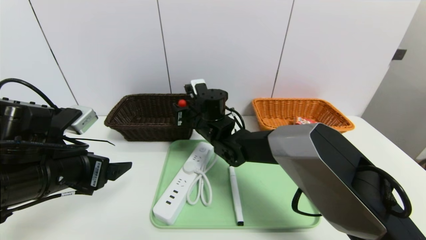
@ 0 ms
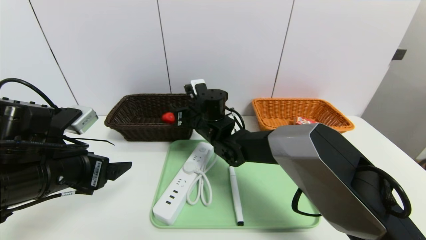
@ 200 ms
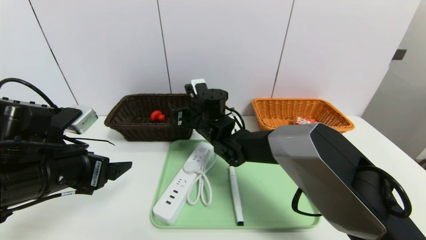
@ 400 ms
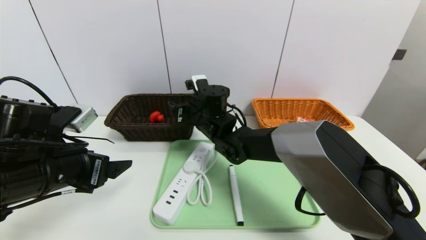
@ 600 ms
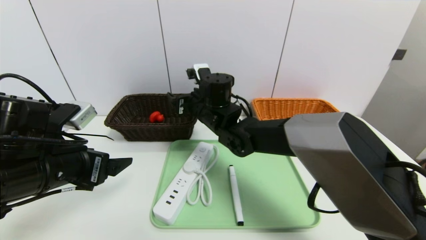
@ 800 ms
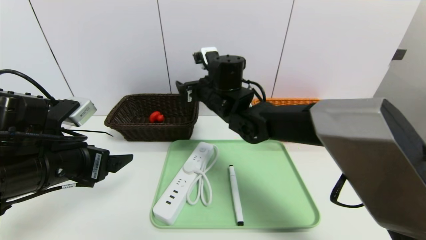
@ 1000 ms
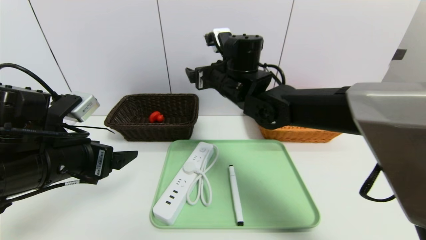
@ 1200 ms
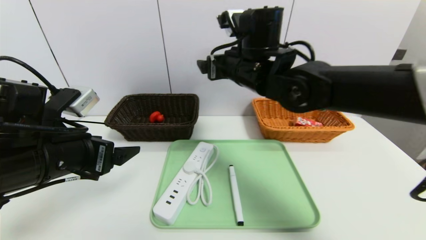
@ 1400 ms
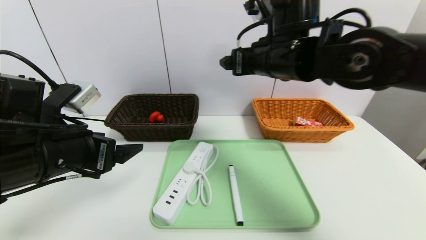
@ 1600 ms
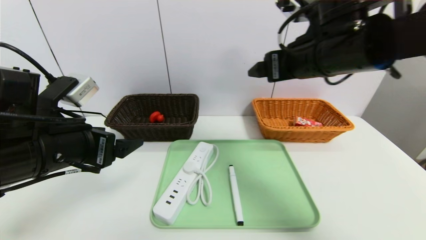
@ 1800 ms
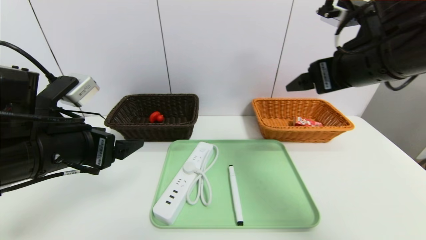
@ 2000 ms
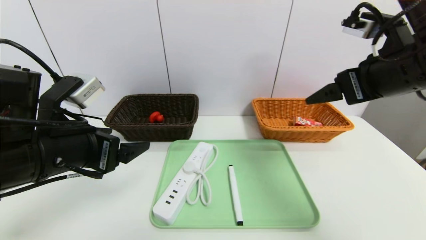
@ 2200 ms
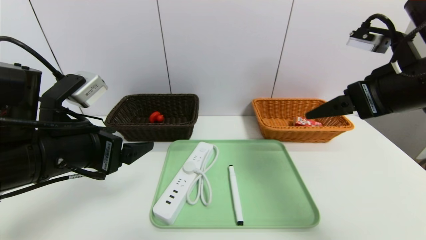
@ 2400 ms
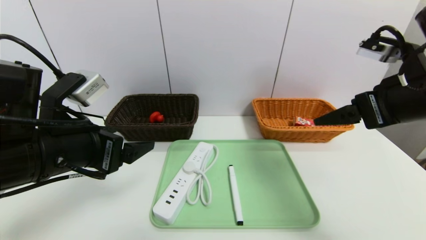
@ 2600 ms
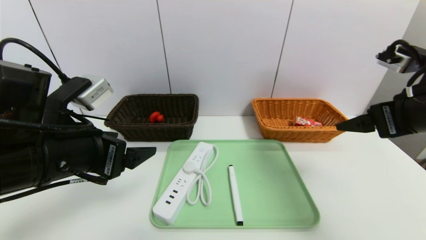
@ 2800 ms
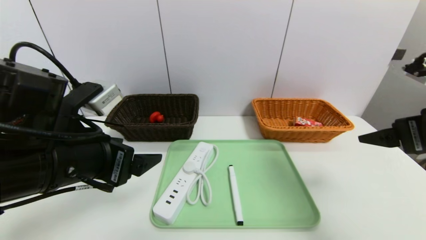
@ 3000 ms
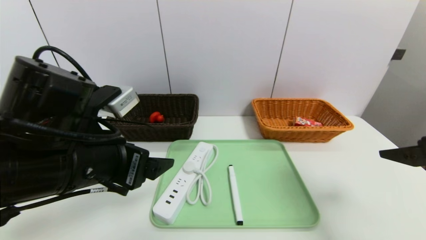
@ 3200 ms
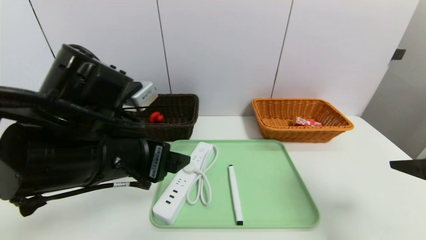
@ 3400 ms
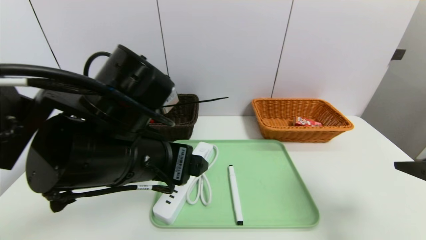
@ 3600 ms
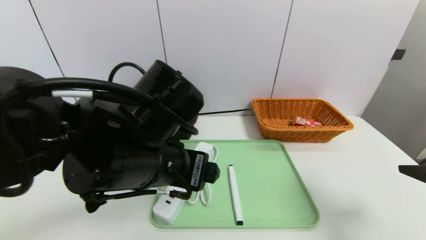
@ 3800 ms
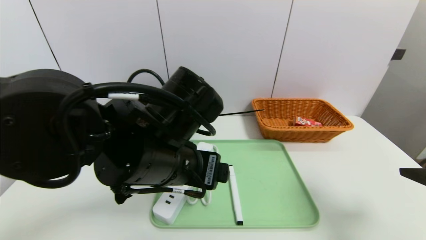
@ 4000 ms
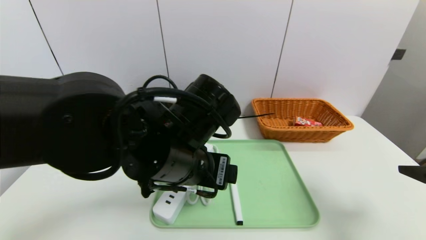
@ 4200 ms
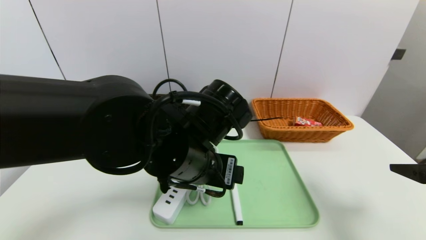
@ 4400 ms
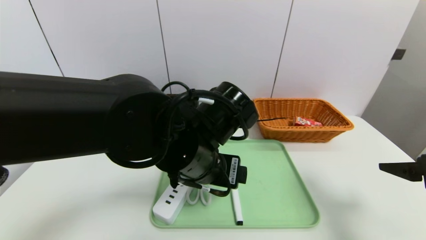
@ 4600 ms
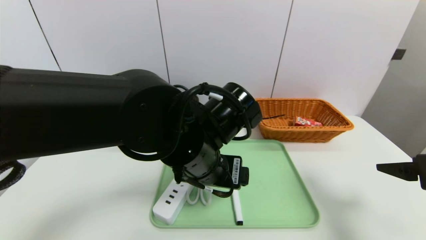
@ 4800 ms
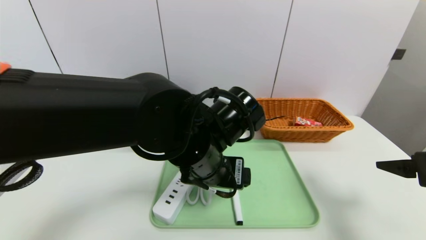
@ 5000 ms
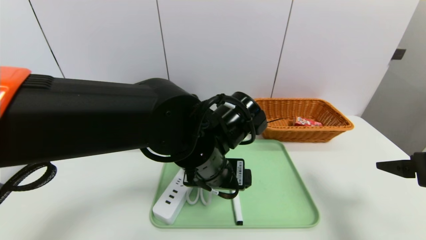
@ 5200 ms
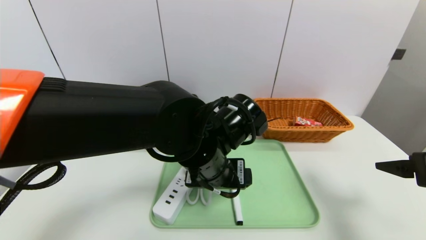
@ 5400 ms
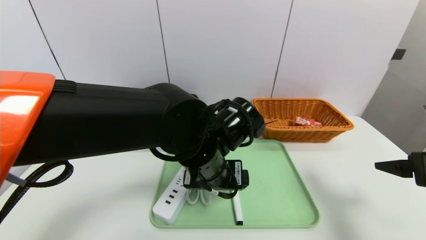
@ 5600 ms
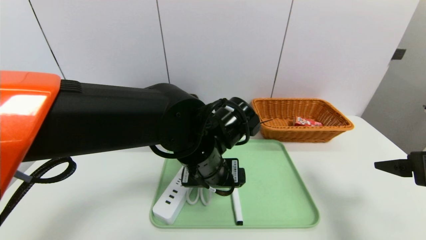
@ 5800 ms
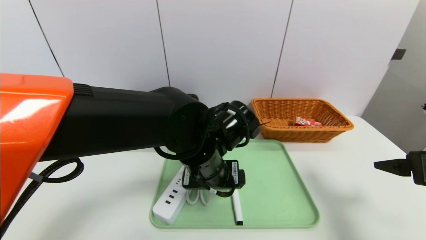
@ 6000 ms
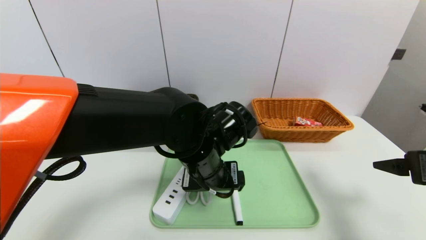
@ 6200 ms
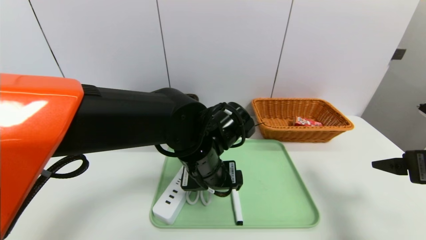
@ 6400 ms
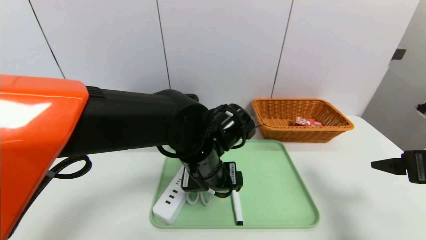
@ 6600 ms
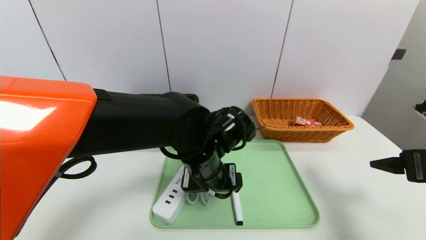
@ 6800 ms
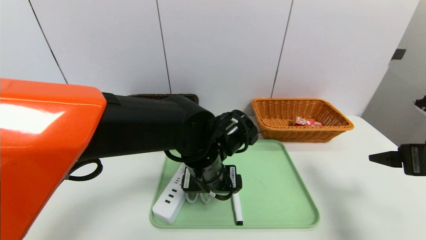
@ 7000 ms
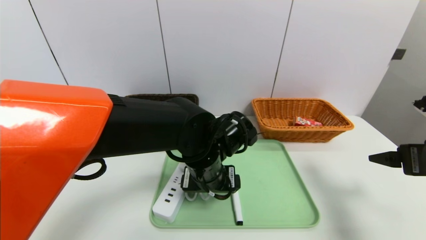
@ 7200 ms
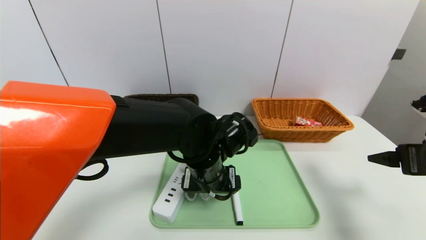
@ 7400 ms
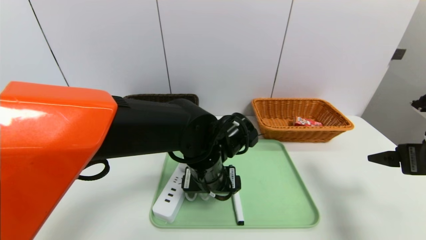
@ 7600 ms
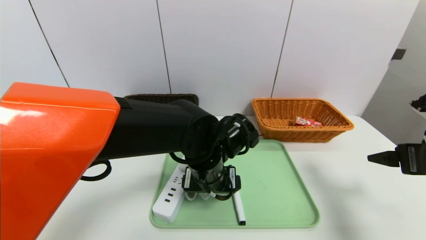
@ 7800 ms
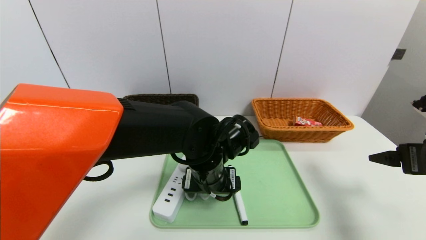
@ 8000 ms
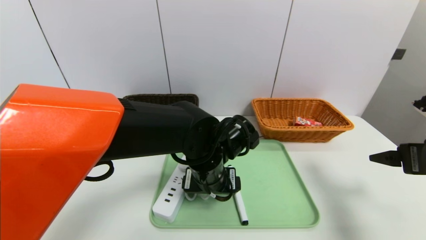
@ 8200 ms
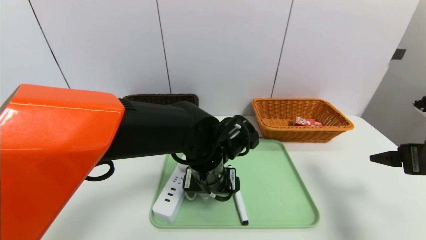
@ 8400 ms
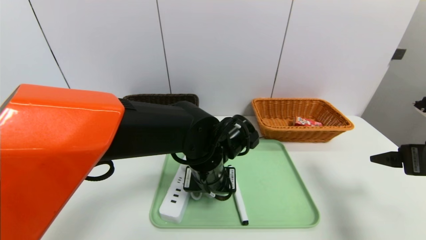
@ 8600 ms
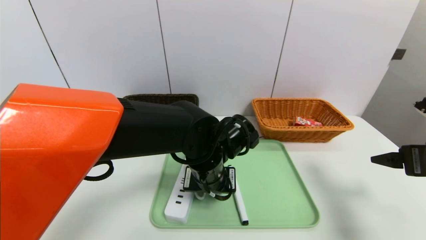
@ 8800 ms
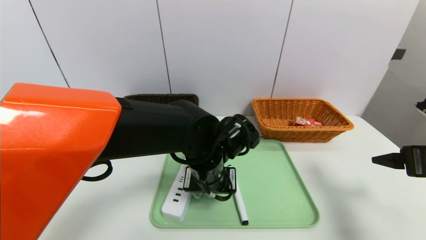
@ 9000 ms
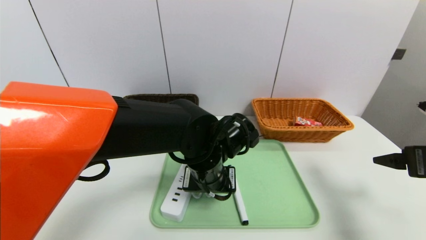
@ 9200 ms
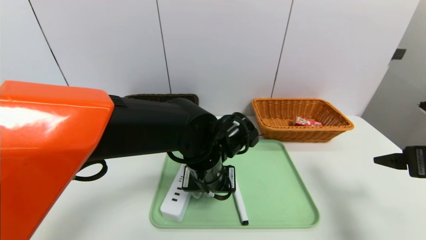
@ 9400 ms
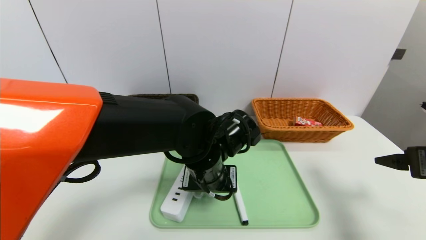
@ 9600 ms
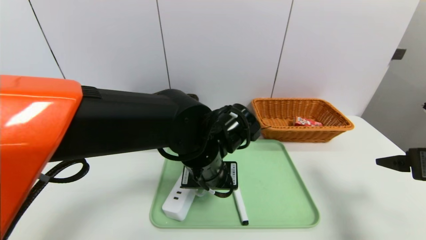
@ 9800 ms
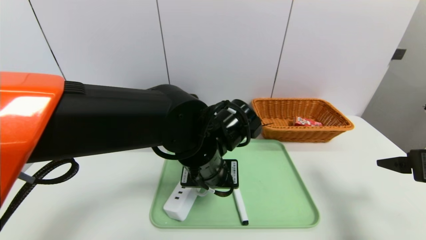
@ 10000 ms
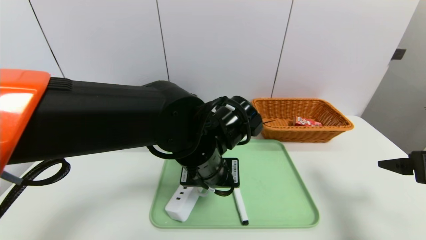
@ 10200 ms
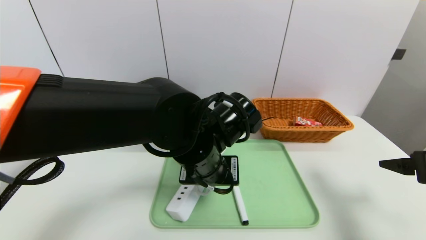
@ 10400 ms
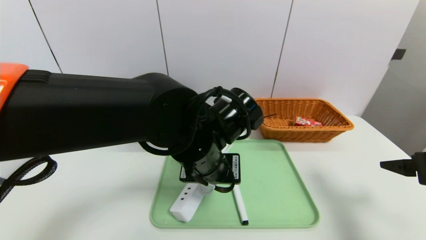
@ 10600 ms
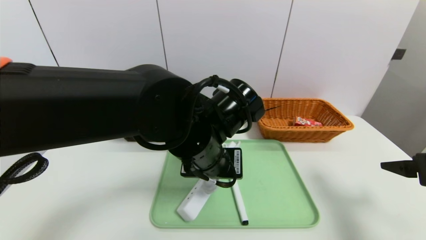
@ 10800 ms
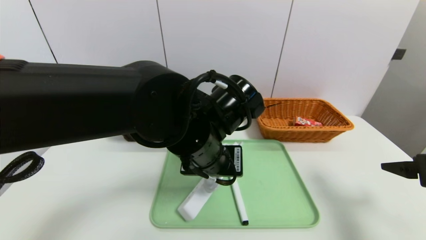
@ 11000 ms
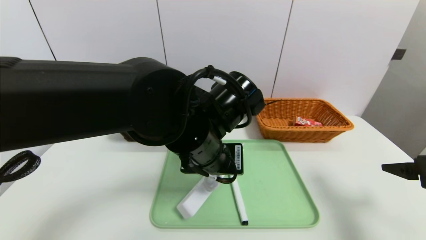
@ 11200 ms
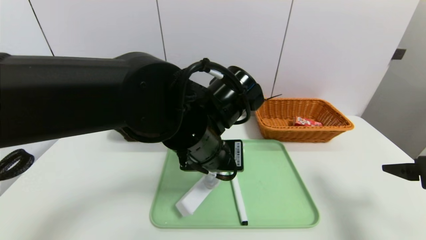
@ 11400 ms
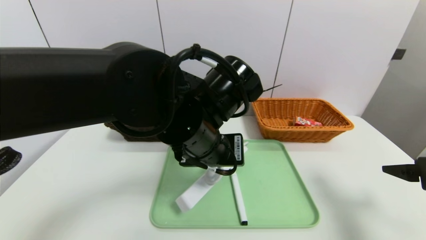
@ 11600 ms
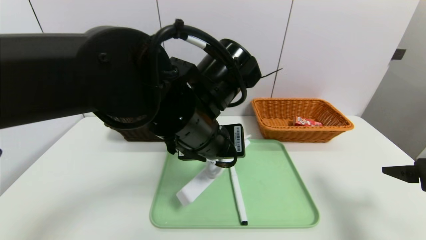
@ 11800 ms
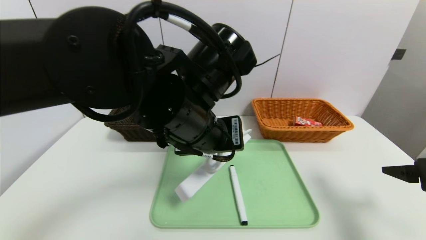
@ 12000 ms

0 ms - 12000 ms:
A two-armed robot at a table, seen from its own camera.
Task of the whole recording: place the food in the right basket with the right gripper, and place the non food items in the left basket with the left gripper.
0 ms - 1600 ms: The right gripper is displaced upward, to the right and backward by approximately 25 cm, and opens.
1600 ms - 3000 ms: The right gripper is displaced to the right and backward by roughly 25 cm.
3000 ms - 4400 ms: The right gripper moves approximately 5 cm. The left gripper moves to the right, approximately 15 cm.
4400 ms - 6000 ms: The left gripper moves roughly 5 cm.
6000 ms - 7600 ms: There are only small adjustments of the grippers.
7600 ms - 9000 ms: The left gripper closes its fingers.
9000 ms - 10400 ms: The left gripper shifts by about 5 cm.
10400 ms - 12000 ms: The left gripper goes approximately 10 cm upward.

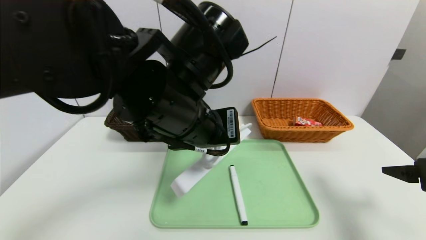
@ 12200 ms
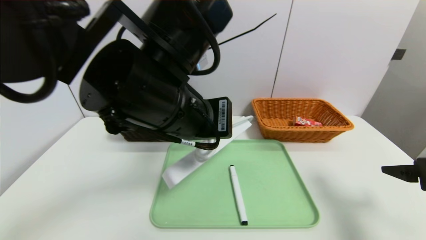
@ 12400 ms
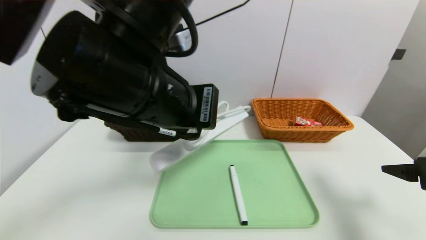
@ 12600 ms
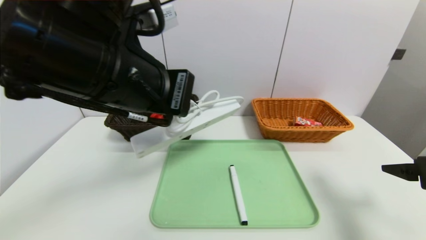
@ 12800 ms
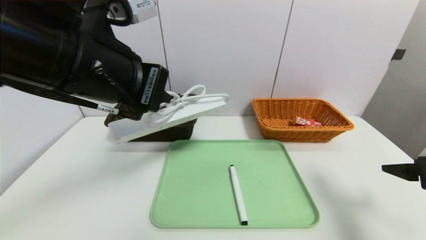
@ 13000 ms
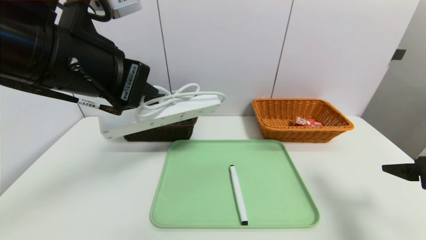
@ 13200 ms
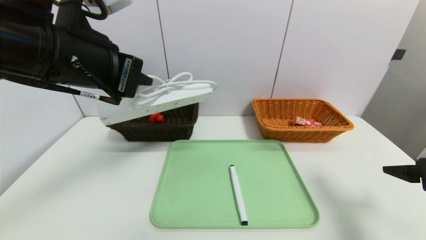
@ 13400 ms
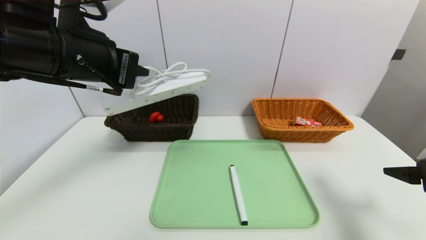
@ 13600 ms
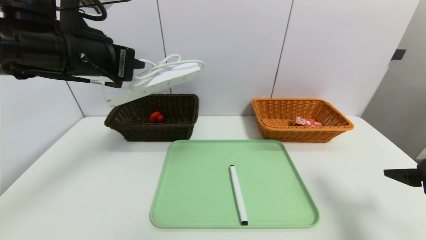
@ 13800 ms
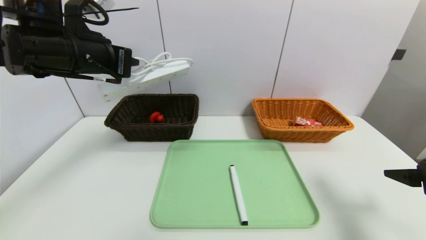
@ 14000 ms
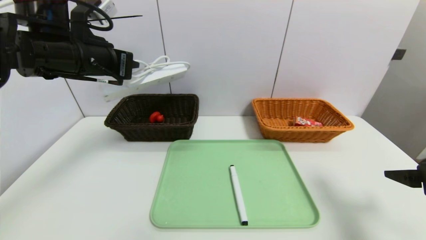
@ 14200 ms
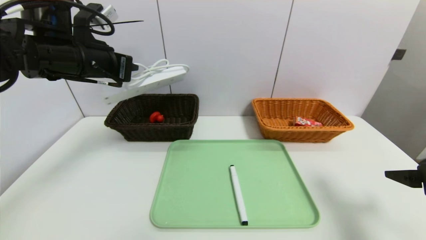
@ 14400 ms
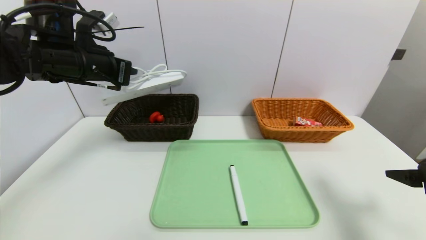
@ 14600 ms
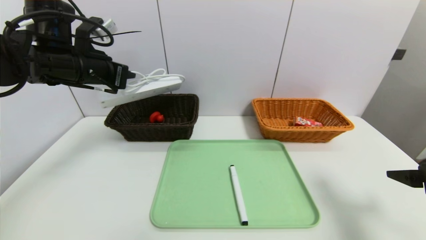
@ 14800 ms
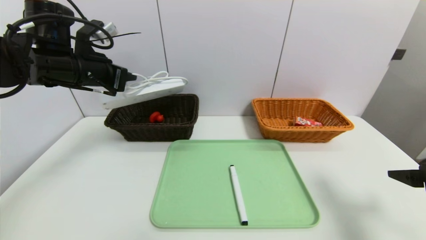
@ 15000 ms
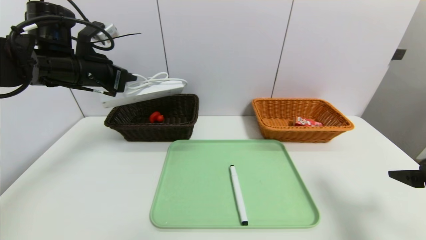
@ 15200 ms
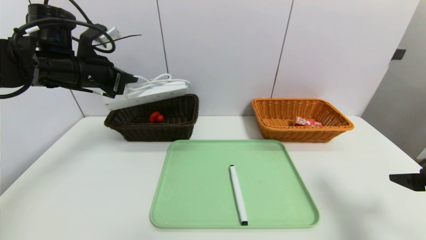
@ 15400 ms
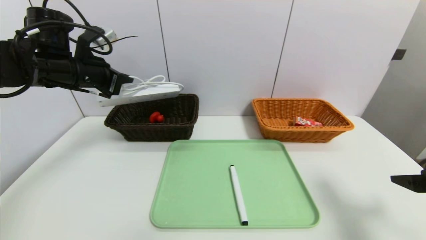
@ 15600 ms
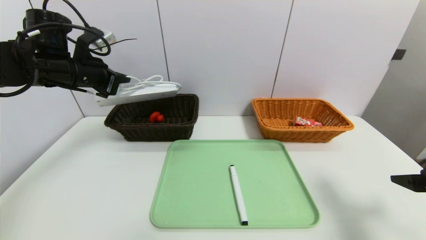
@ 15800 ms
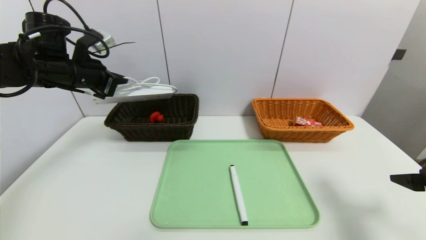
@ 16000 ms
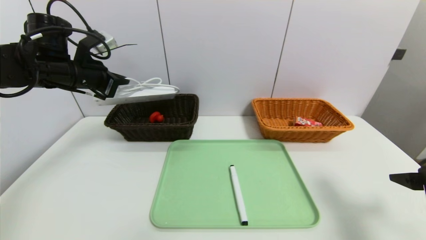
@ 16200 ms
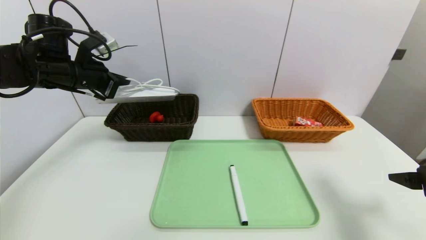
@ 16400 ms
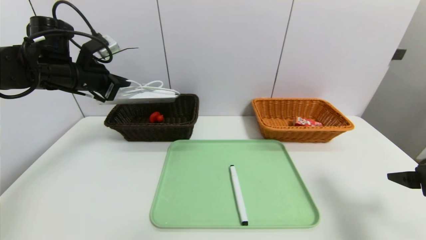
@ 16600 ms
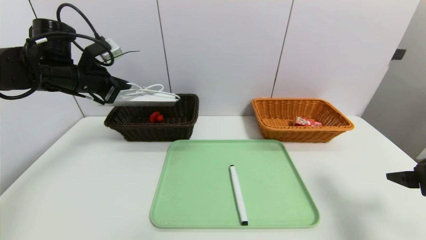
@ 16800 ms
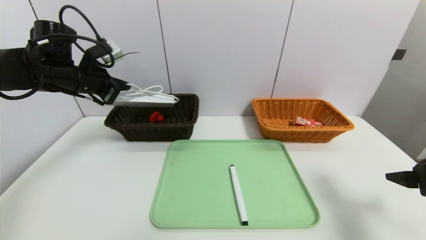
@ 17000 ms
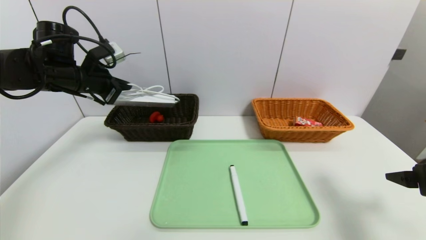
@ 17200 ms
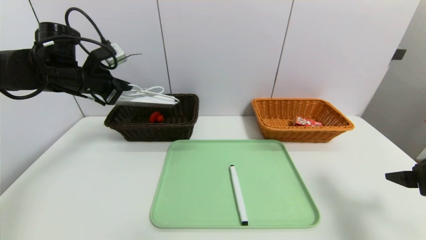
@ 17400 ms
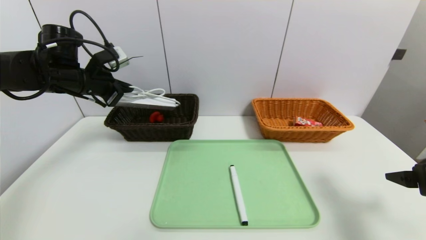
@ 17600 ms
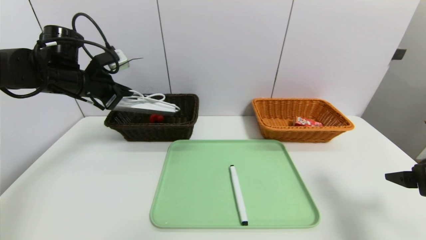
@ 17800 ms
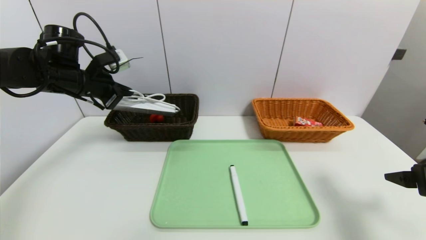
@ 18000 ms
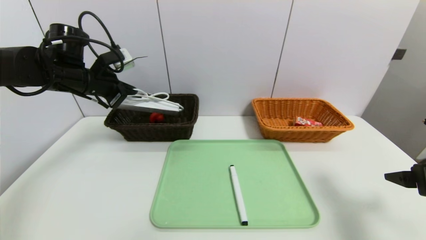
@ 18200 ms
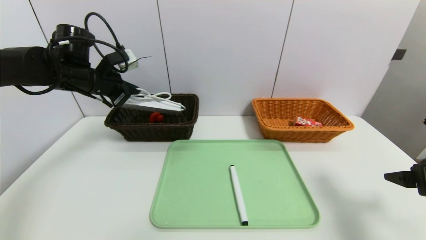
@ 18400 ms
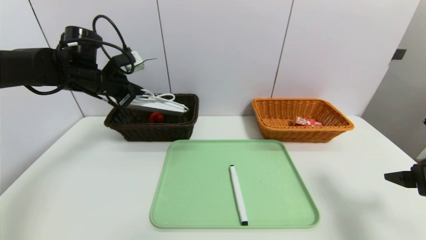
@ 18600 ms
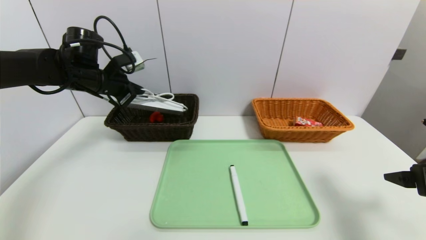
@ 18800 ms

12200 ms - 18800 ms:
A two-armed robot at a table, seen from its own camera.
Task of the whole recording: place the food in the right basket with the right gripper, and place the non food items in the left basket with the left gripper.
12200 ms - 13800 ms: The left gripper is displaced to the left by approximately 15 cm.
13800 ms - 15400 ms: The left gripper goes some 10 cm forward and to the left.
17200 ms - 18800 ms: The grippers make only small movements.
